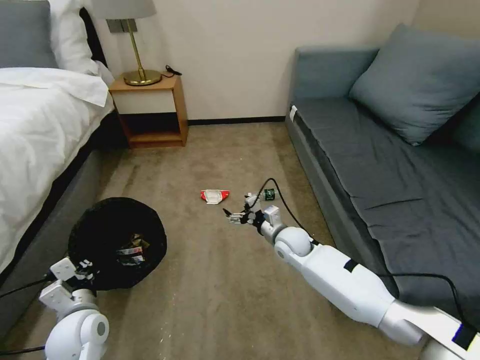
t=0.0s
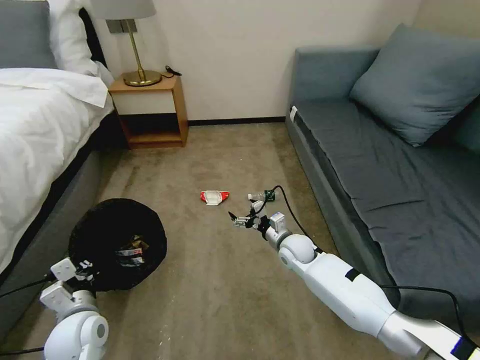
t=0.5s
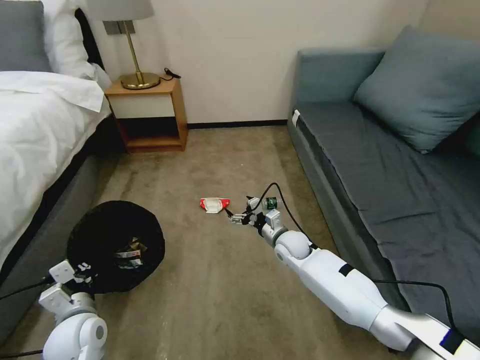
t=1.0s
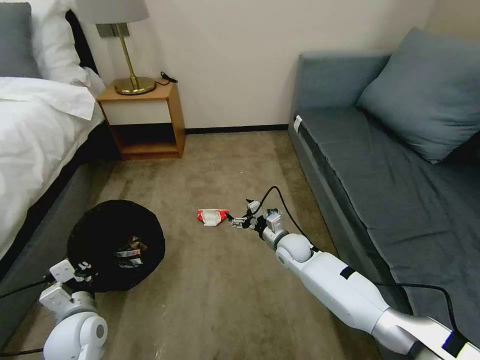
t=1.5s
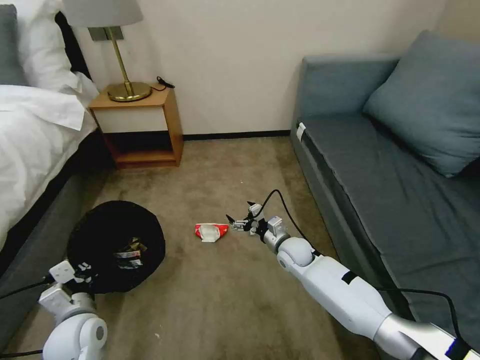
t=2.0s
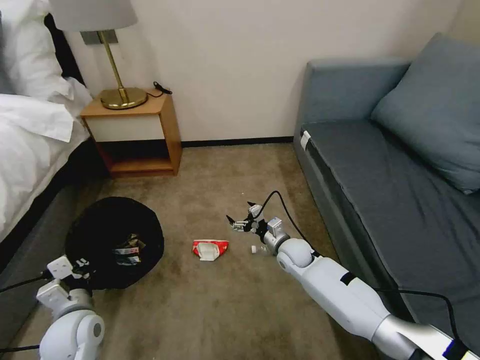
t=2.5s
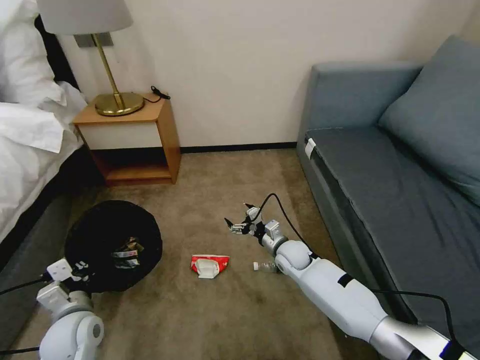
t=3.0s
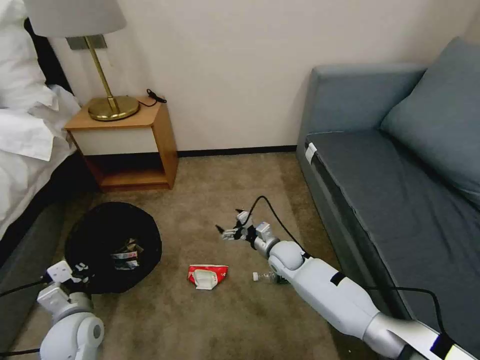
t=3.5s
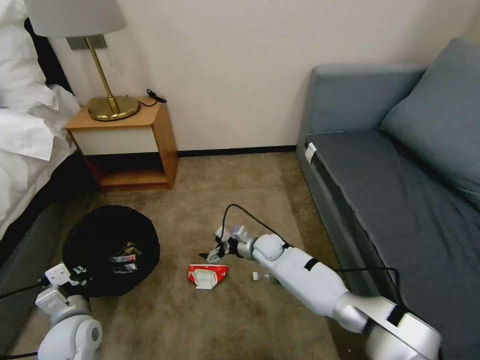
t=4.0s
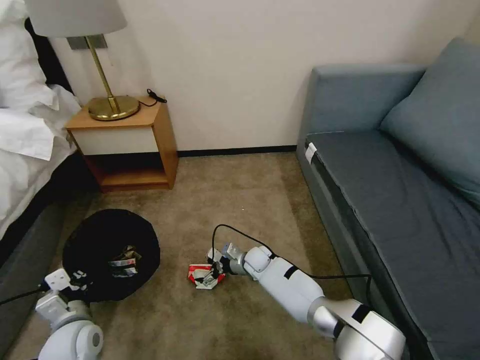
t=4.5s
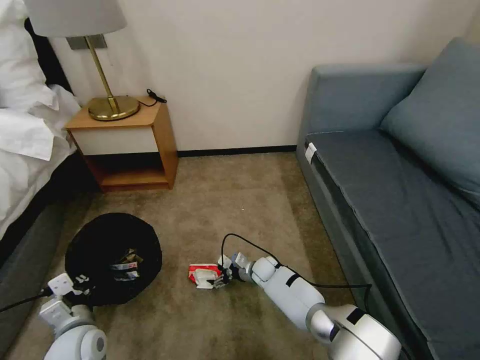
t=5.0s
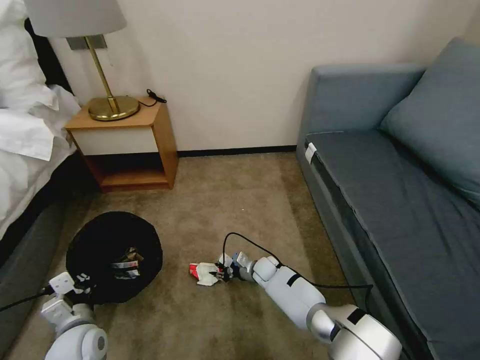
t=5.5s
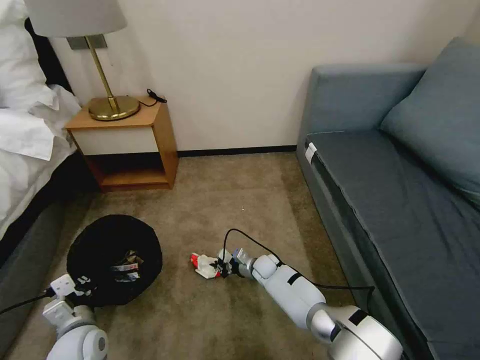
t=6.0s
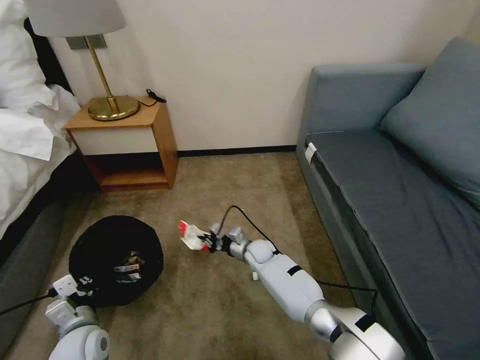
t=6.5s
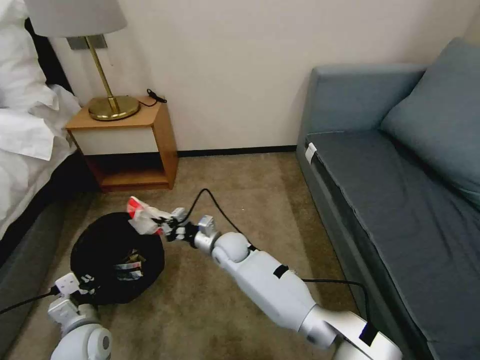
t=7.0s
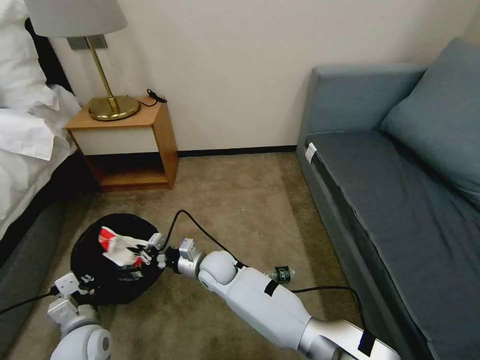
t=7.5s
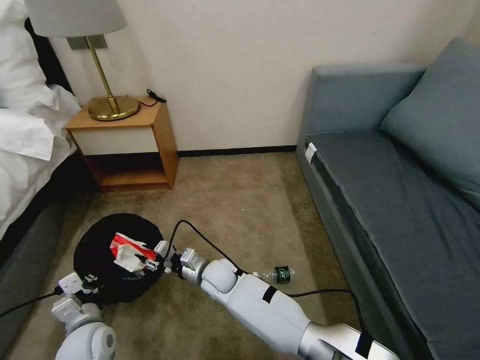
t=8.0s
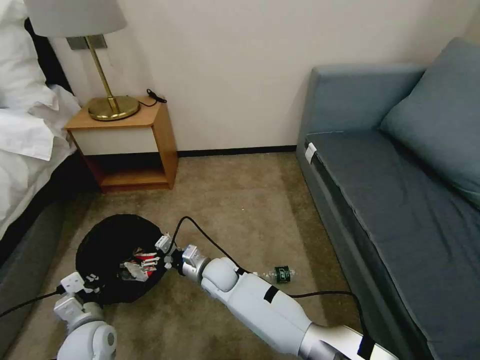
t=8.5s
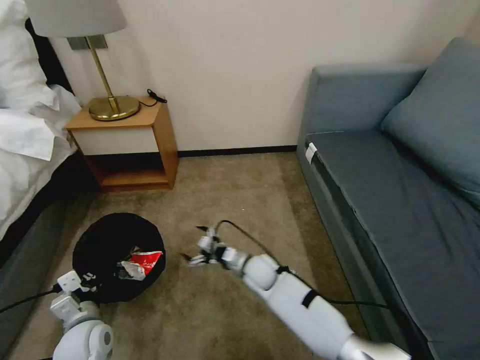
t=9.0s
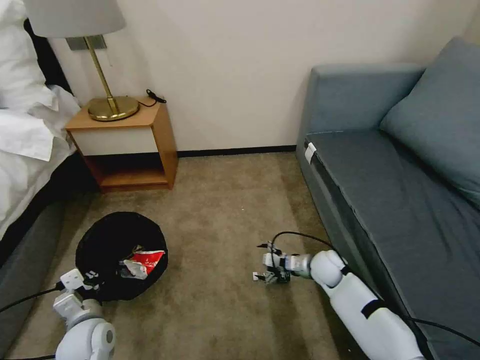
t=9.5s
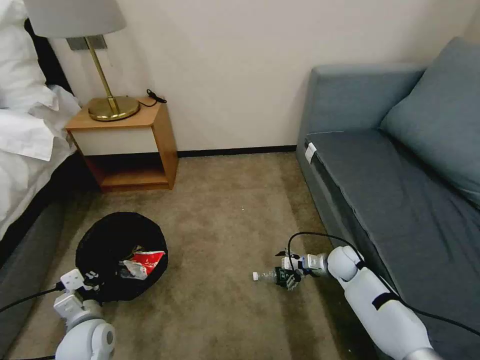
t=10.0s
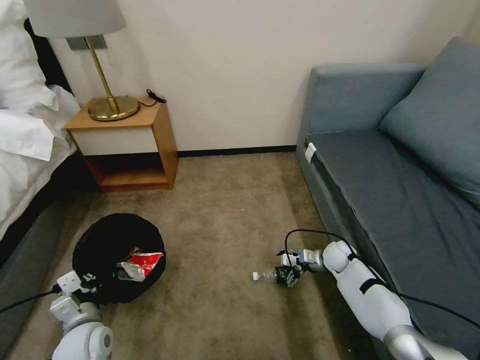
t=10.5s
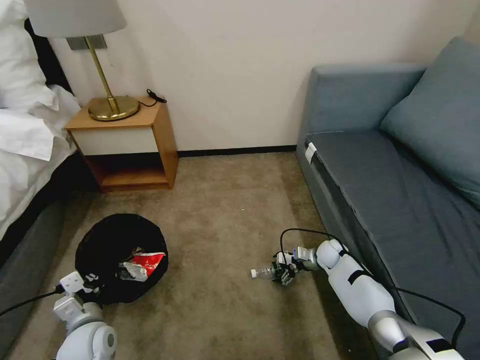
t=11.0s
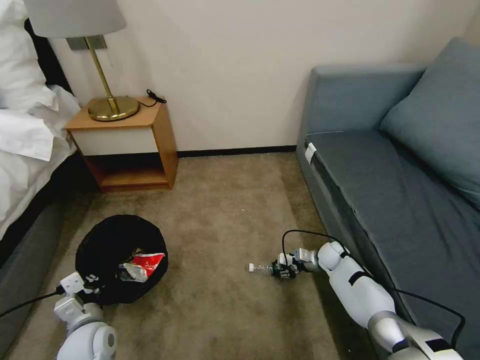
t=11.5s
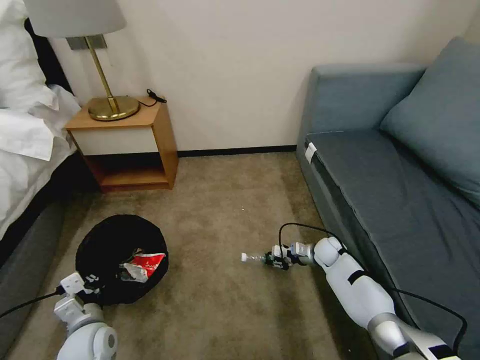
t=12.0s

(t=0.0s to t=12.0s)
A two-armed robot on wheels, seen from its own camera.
Task of the whole recording: Pick up the trash bin, then pick up the garbage on the floor and place it into the trash bin.
t=2.0s - t=4.0s: The right gripper moves to the left, approximately 5 cm.
t=4.0s - t=6.0s: The right gripper moves downward, approximately 10 cm, and closes.
t=6.0s - t=8.0s: The right gripper travels to the left, upward and backward by approximately 20 cm.
t=8.0s - t=10.0s: The right gripper moves to the right, some 35 cm, and opens up.
t=10.0s - t=12.0s: The right gripper moves forward, some 5 cm, and closes up.

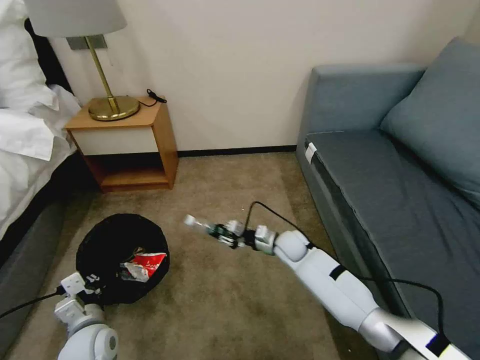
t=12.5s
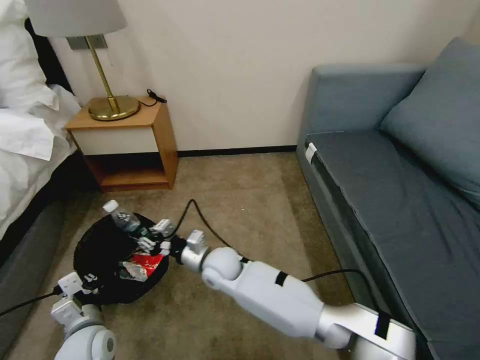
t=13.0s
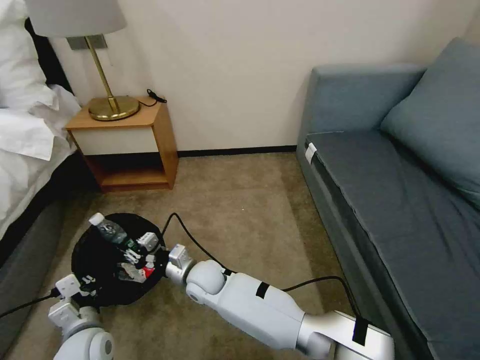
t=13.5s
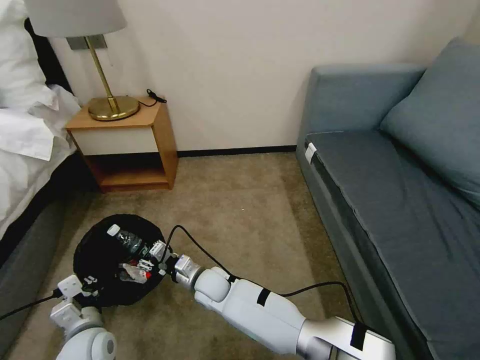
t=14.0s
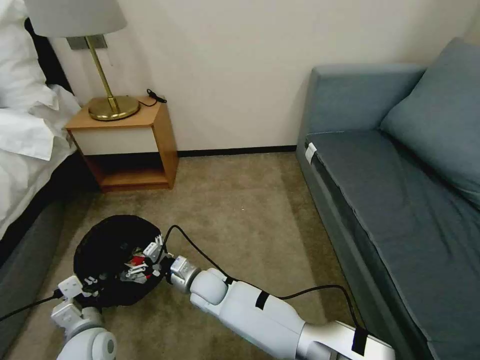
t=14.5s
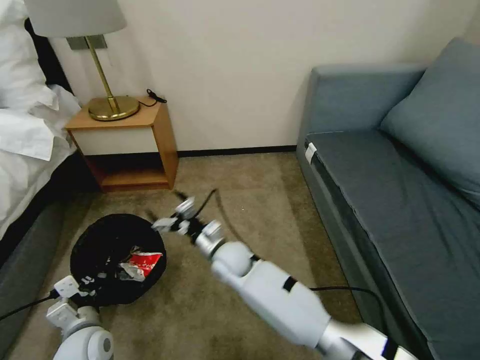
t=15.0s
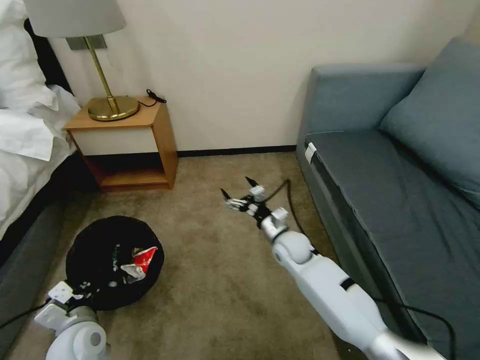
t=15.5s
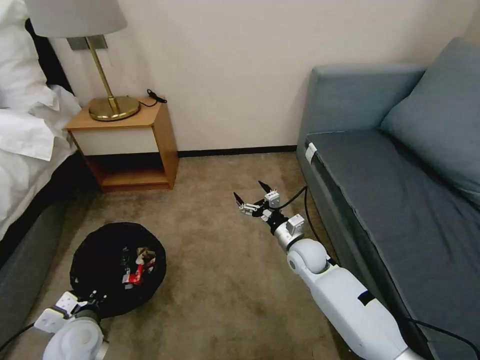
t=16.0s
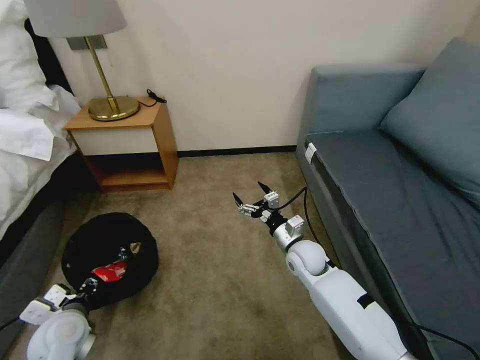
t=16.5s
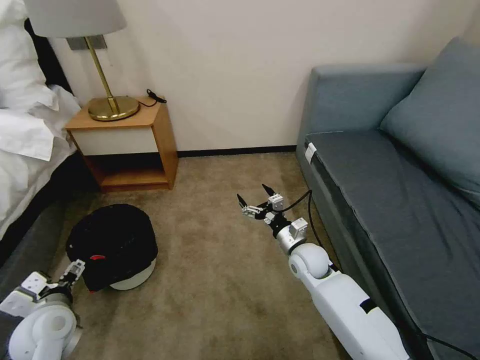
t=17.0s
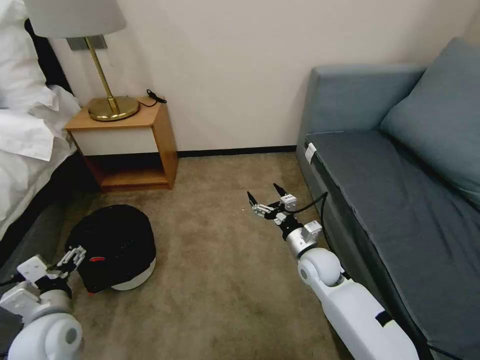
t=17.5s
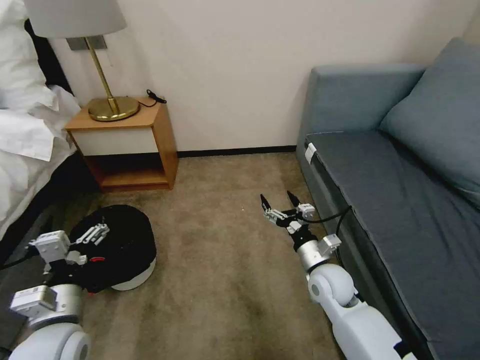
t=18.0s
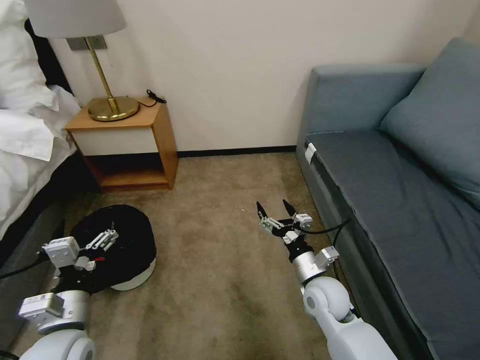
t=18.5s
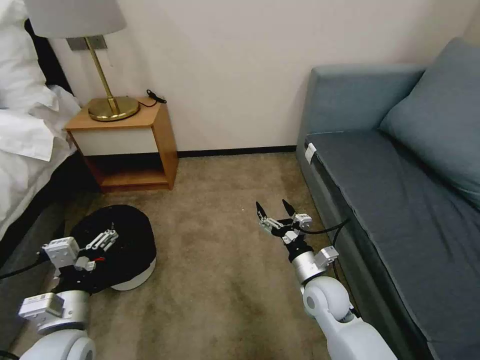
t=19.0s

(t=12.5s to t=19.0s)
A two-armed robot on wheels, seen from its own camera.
Task of the whole recording: Pick up the trash bin, then pick up the garbage on the floor and place it into the trash bin.
t=12.5s - t=14.5s: The right gripper moves to the left and backward, roughly 25 cm, and opens its fingers.
t=14.5s - t=17.0s: The left gripper moves to the left and upward, approximately 10 cm, and opens; the right gripper is displaced to the right by some 25 cm.
t=17.0s - t=19.0s: The right gripper is displaced backward by about 10 cm; the left gripper is displaced to the right by roughly 10 cm.

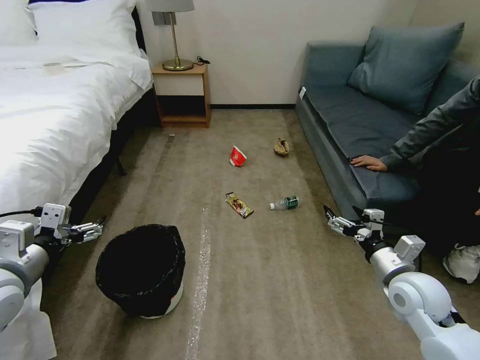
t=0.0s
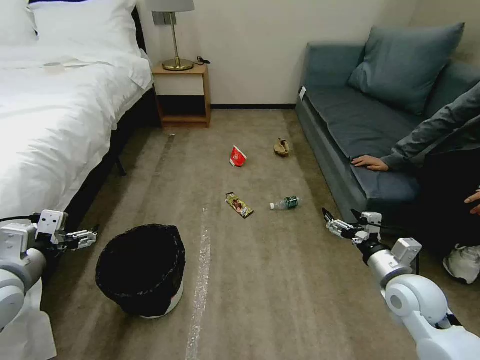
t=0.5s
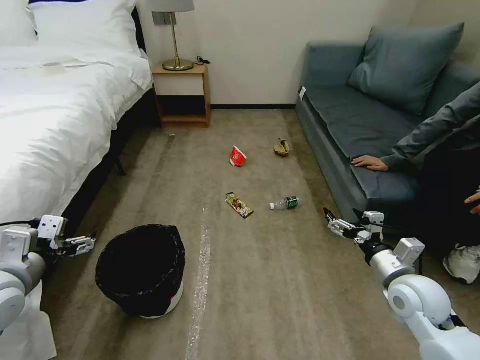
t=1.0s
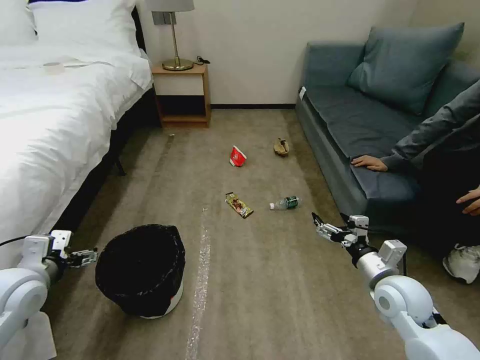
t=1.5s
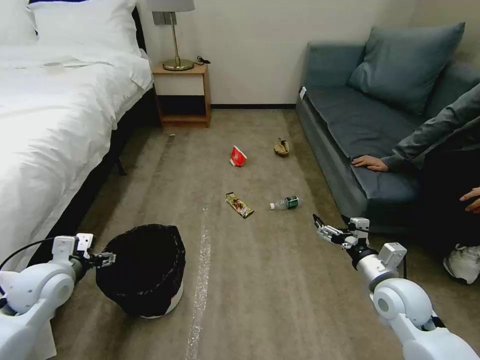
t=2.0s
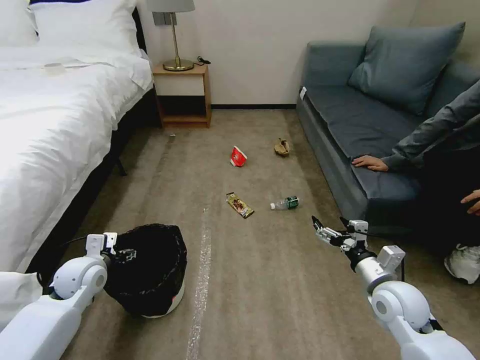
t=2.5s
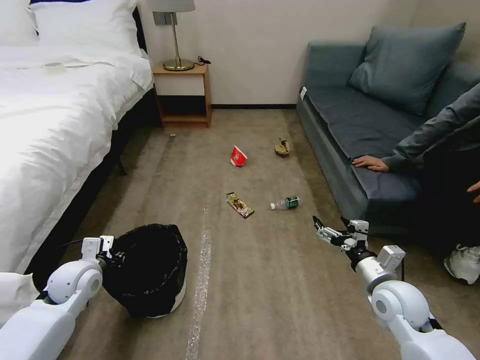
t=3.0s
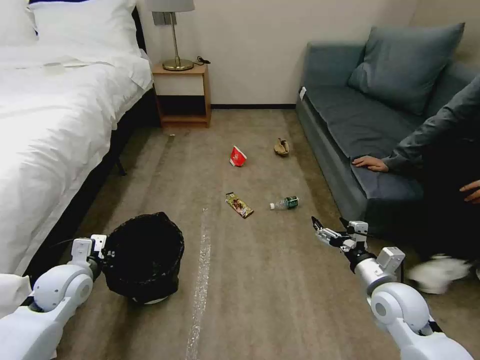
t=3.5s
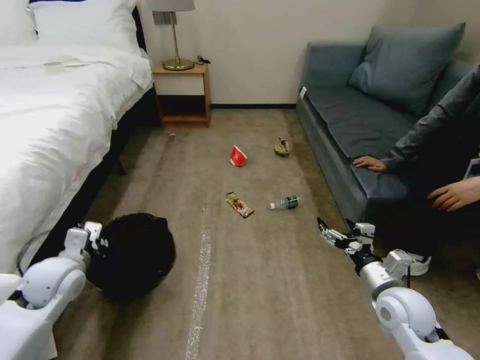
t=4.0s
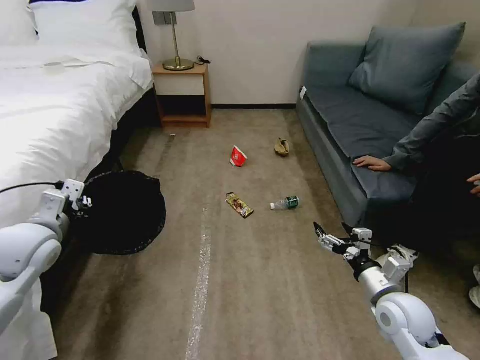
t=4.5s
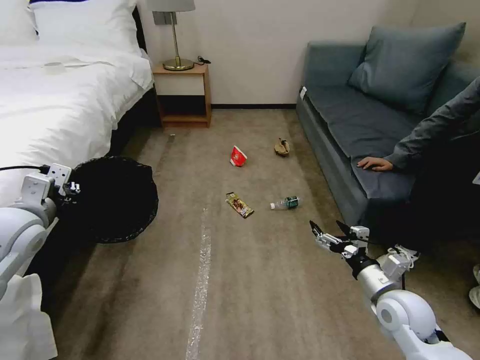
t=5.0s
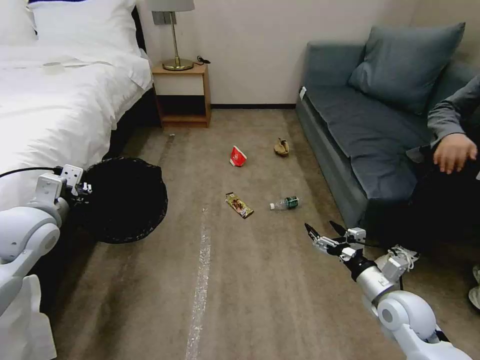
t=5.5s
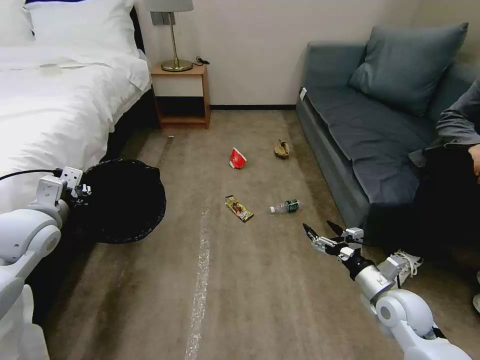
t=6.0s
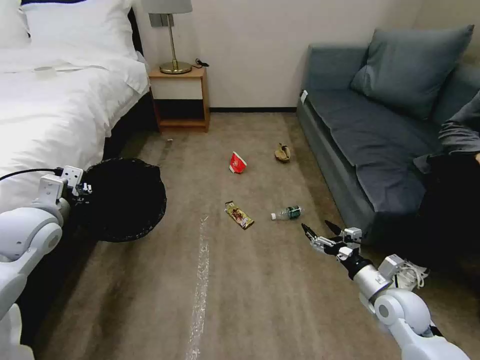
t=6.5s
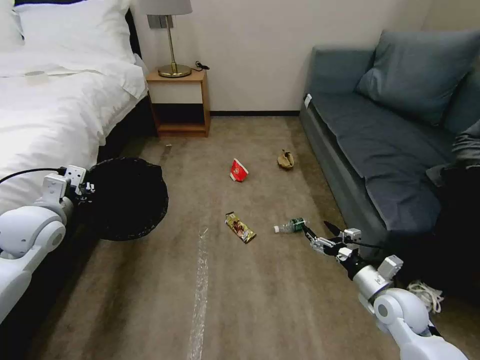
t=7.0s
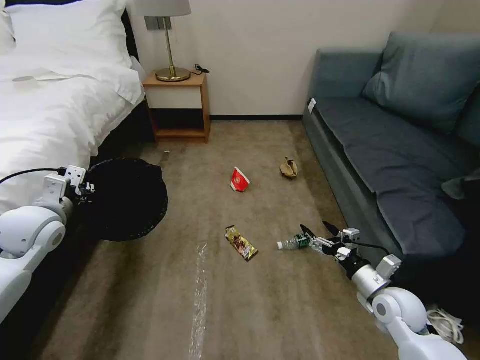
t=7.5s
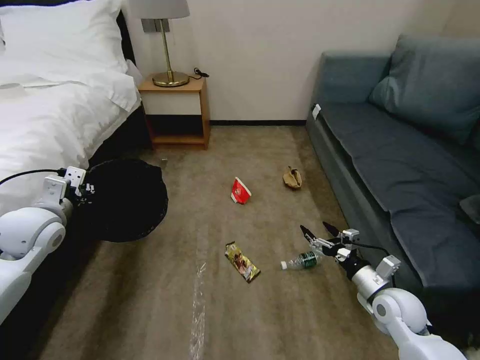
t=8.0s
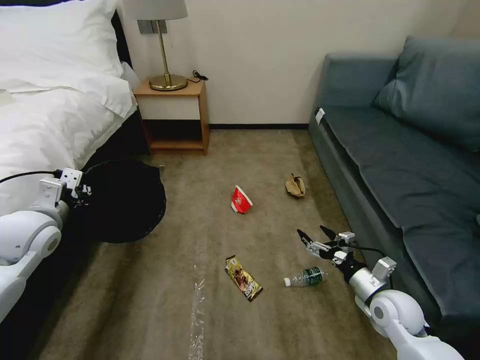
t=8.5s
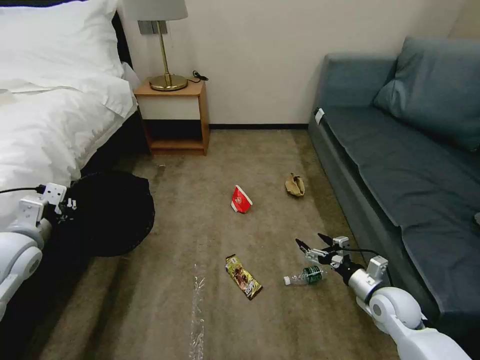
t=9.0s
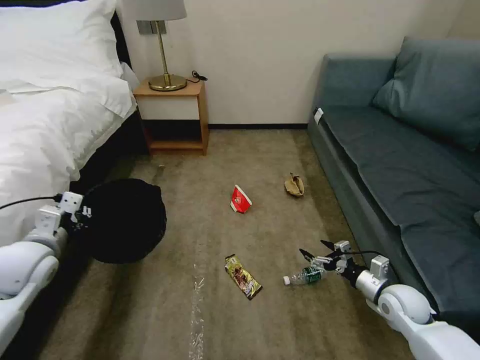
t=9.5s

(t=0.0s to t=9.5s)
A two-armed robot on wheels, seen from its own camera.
Task of the whole recording: Pick up the trash bin, then pick up the garbage on the floor and place it into the trash bin.
t=2.0s - t=4.0s: The left gripper closes its fingers.
t=4.0s - t=5.5s: The left gripper heads upward, covering roughly 10 cm.
t=7.5s - t=9.5s: The right gripper shifts by roughly 5 cm. Meanwhile the left gripper goes roughly 5 cm backward.
